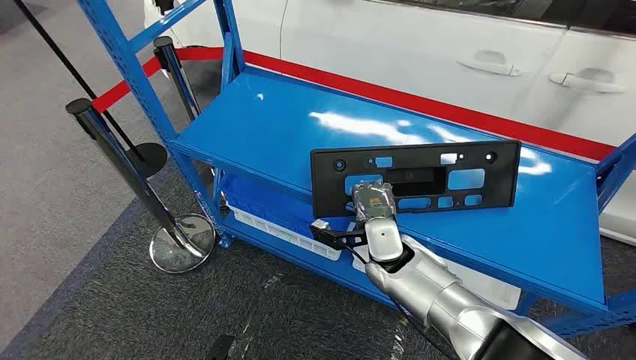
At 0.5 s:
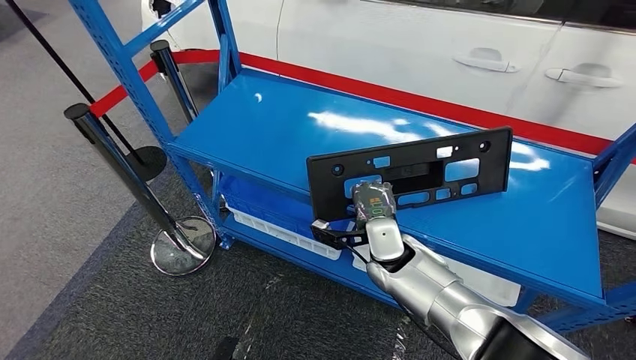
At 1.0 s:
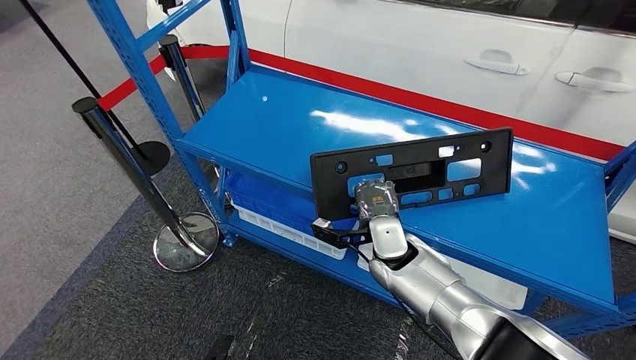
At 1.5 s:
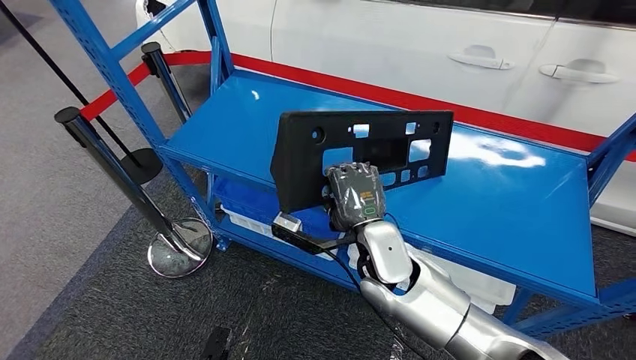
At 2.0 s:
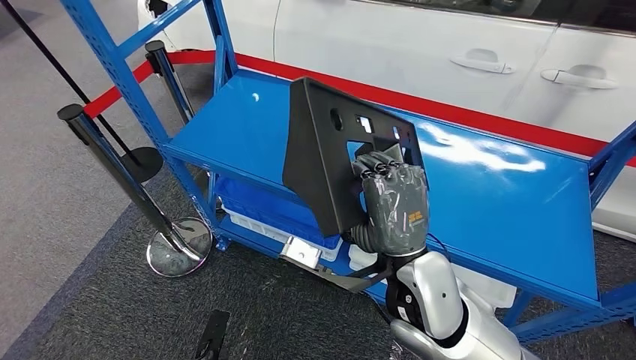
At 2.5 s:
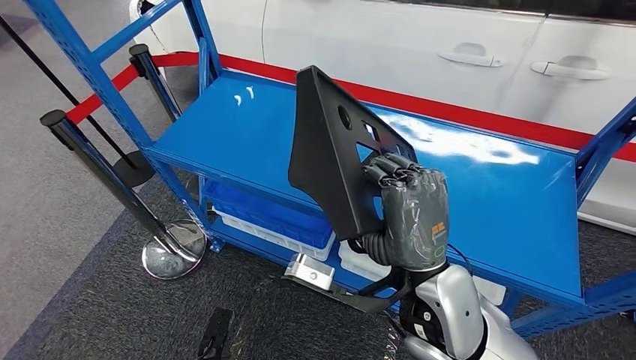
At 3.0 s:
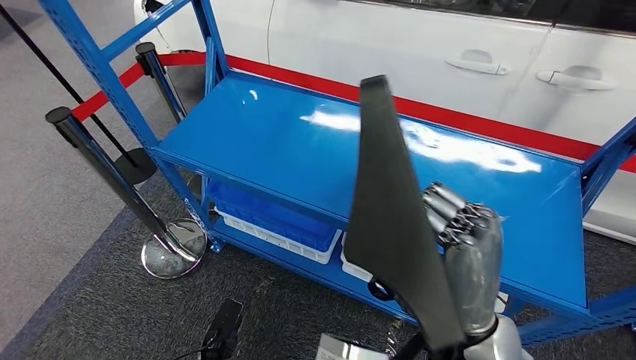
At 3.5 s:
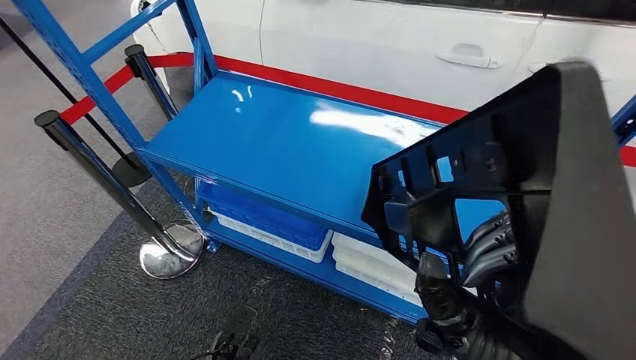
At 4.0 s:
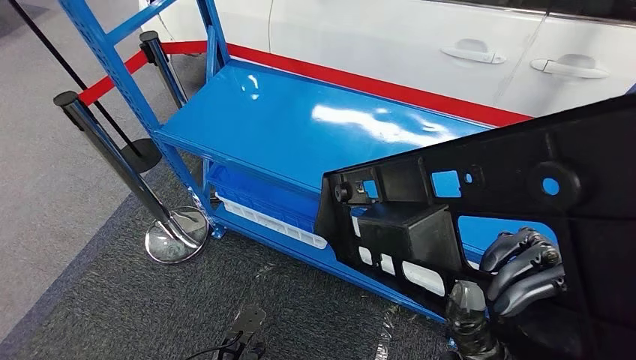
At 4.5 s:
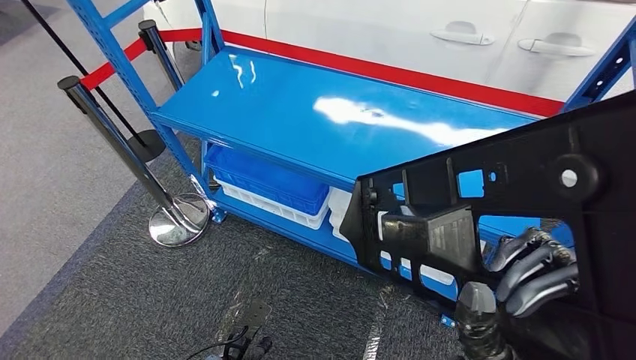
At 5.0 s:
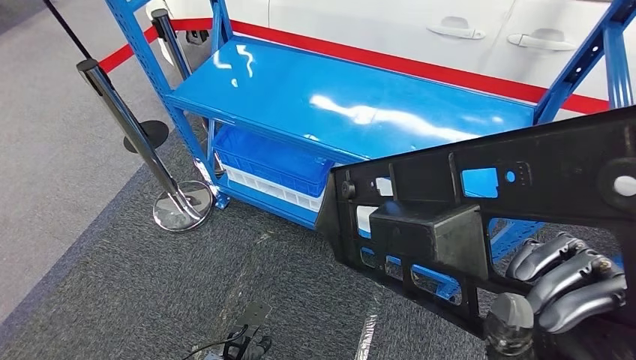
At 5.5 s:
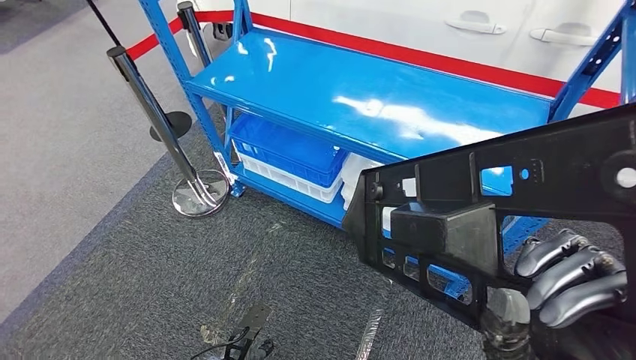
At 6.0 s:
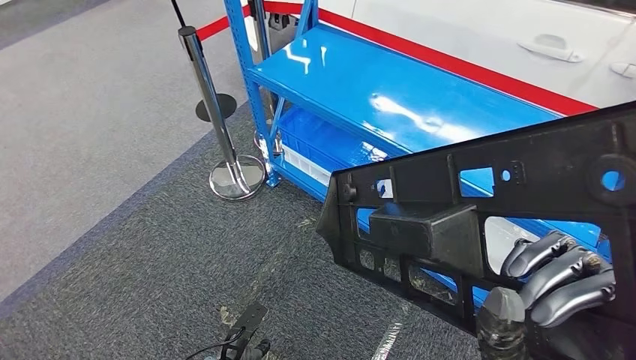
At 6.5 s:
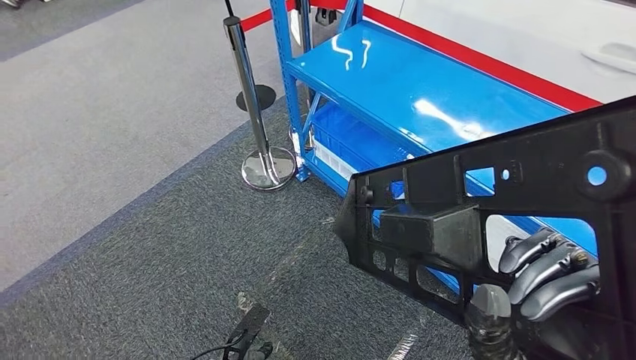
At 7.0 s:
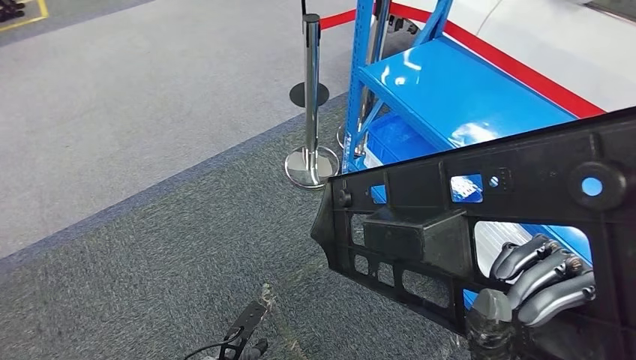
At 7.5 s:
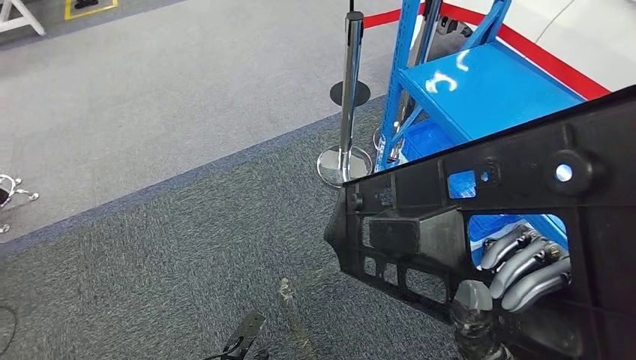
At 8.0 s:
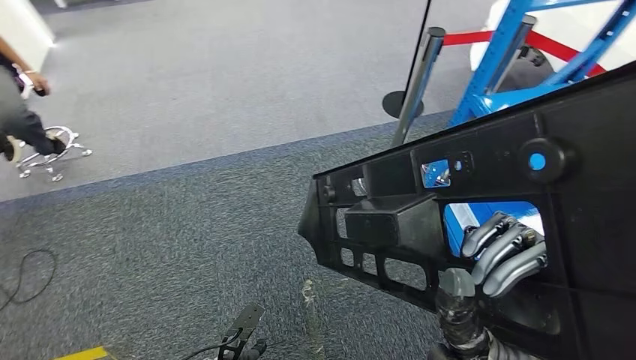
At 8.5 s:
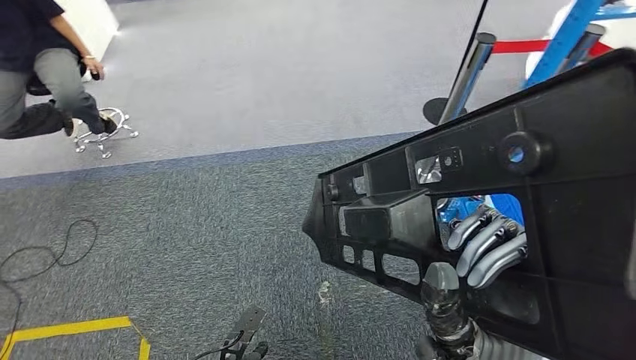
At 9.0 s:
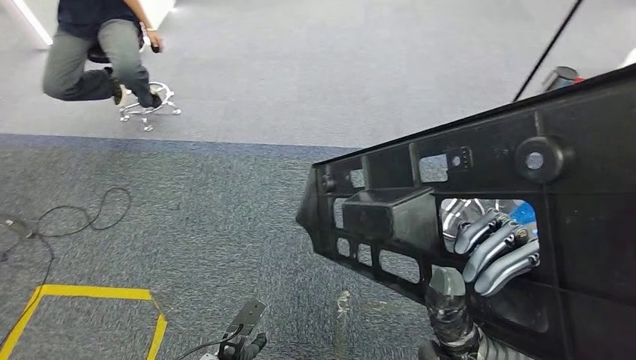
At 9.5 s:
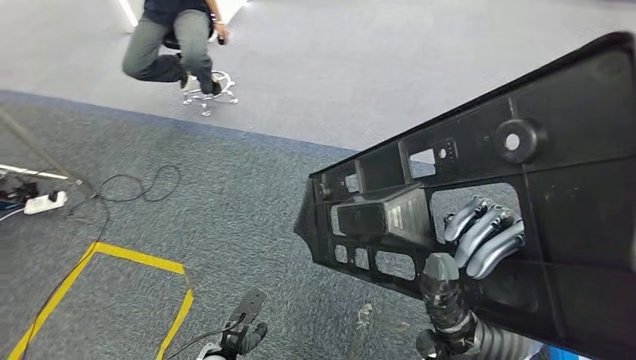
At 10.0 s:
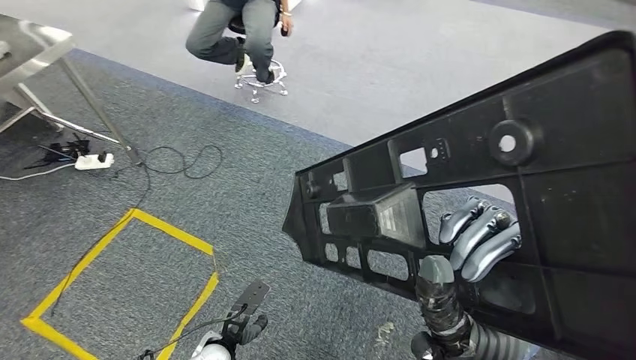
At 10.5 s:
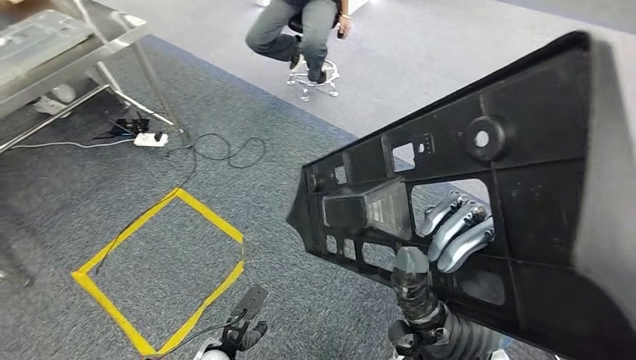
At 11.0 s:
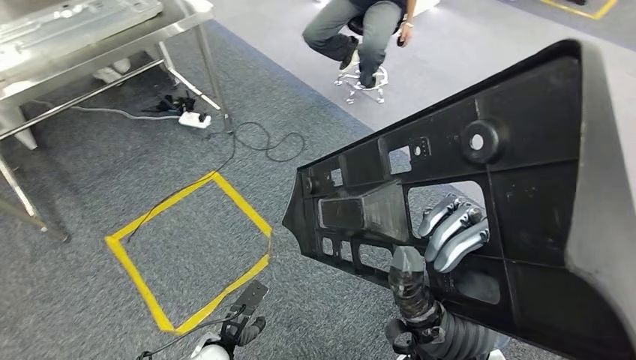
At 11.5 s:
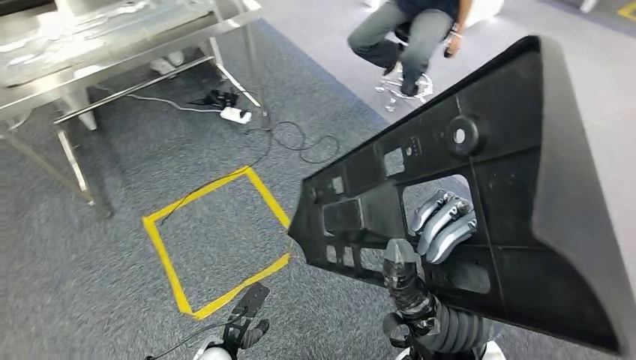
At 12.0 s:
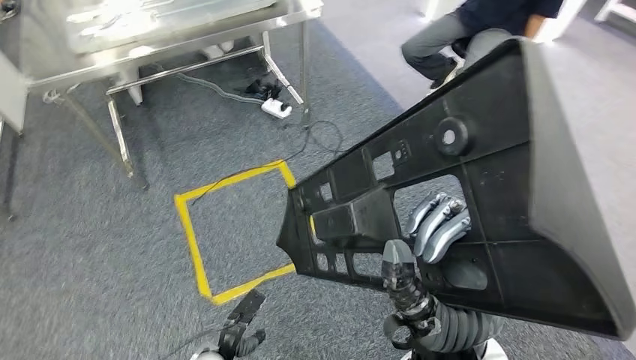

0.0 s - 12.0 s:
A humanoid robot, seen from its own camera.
Step, 0.0 s - 6.0 s: Pick up the large parts from the shelf.

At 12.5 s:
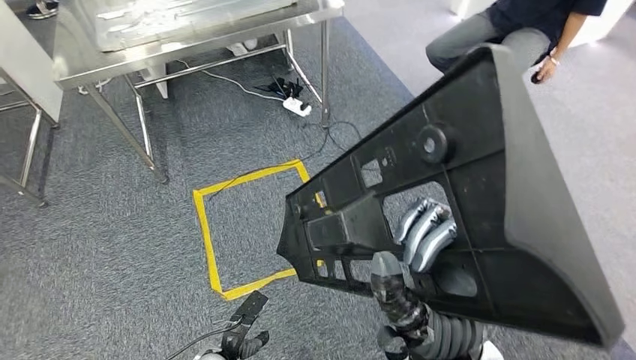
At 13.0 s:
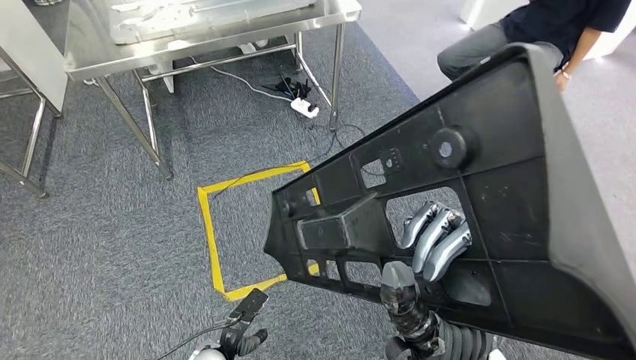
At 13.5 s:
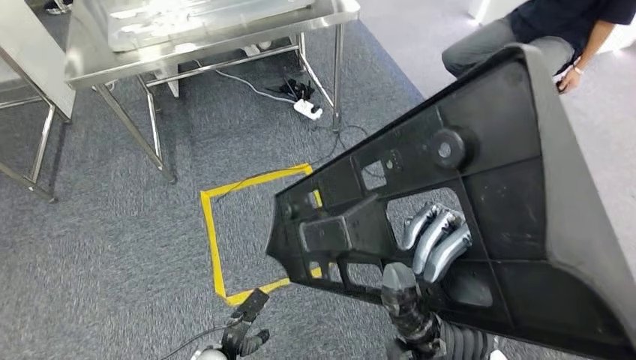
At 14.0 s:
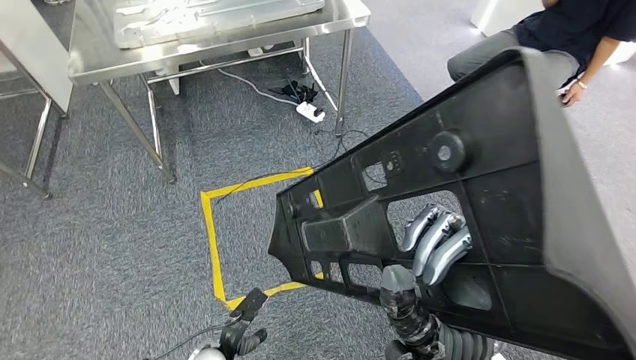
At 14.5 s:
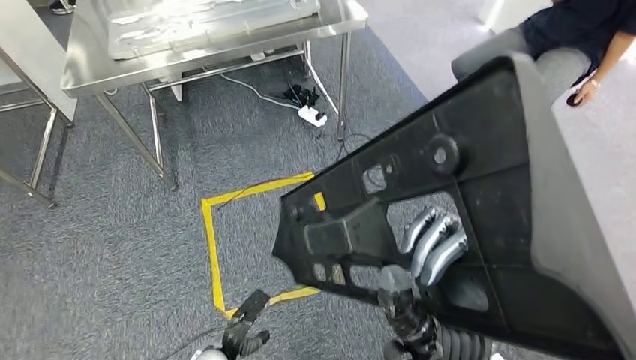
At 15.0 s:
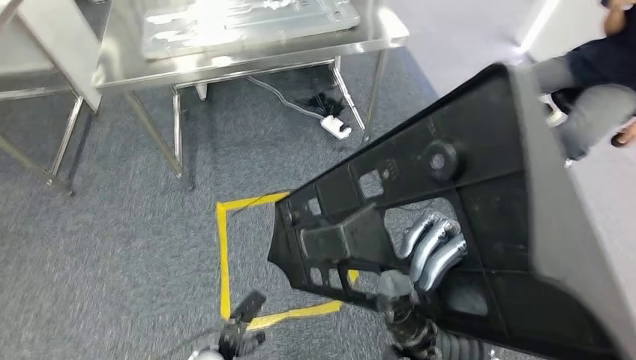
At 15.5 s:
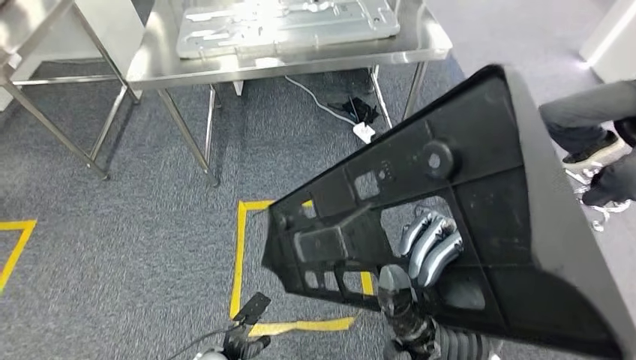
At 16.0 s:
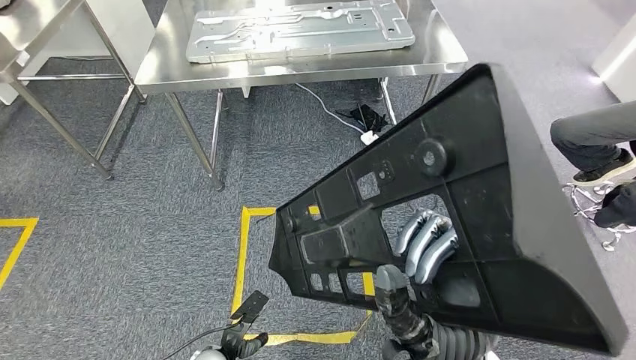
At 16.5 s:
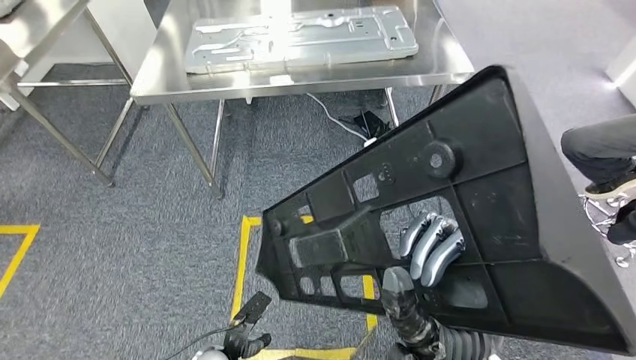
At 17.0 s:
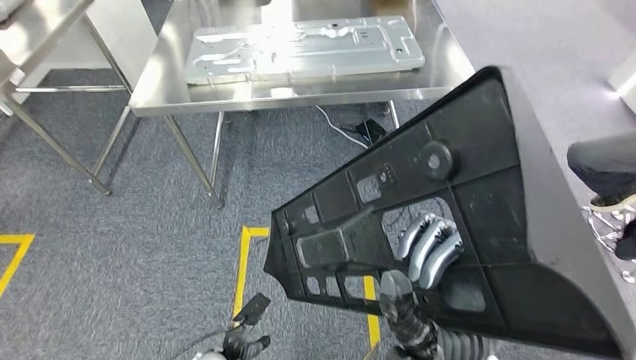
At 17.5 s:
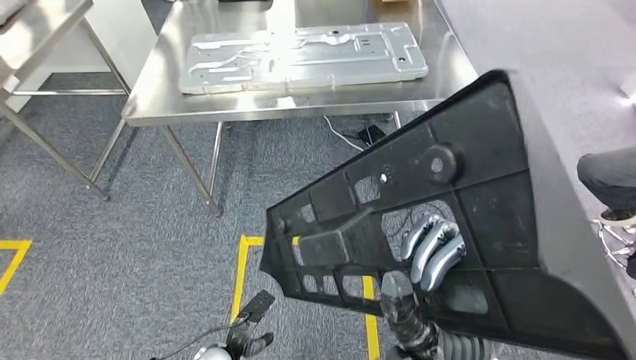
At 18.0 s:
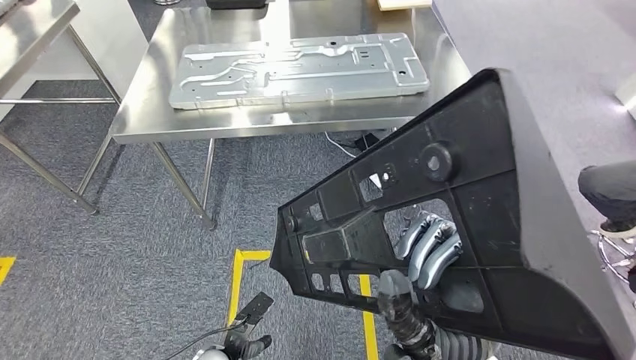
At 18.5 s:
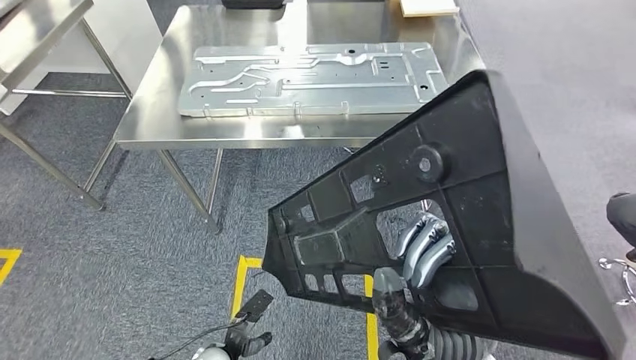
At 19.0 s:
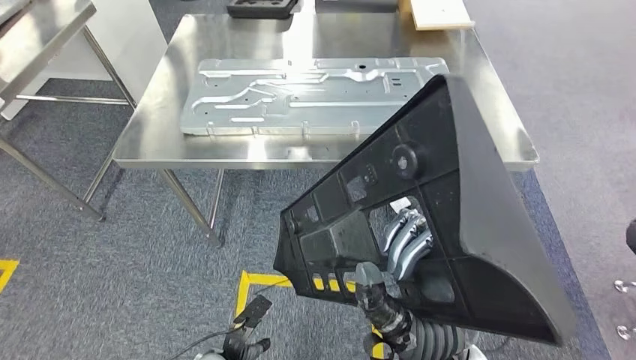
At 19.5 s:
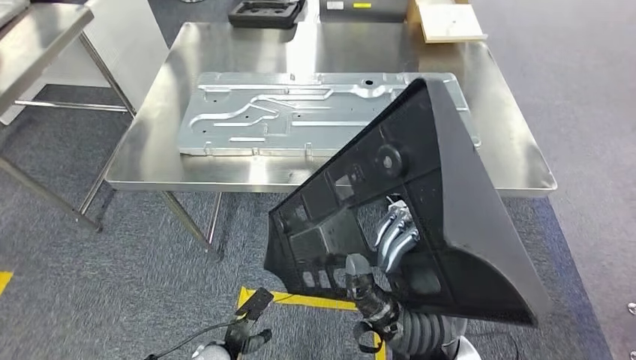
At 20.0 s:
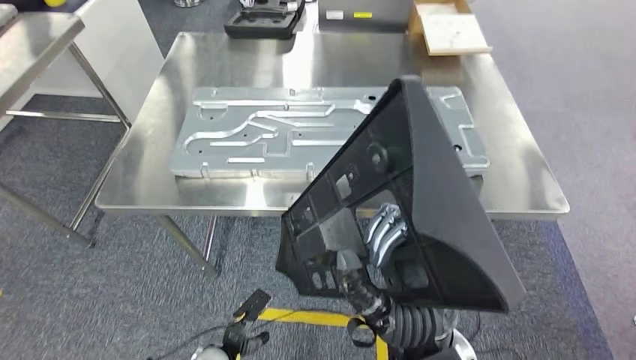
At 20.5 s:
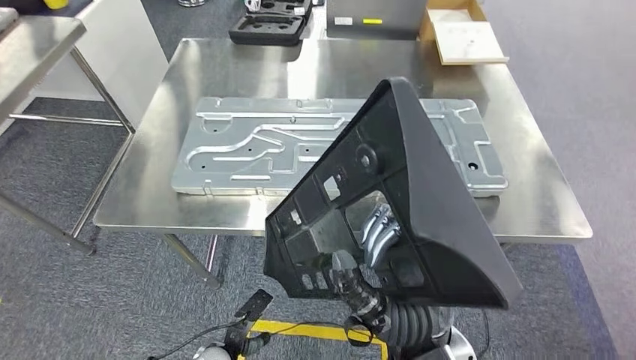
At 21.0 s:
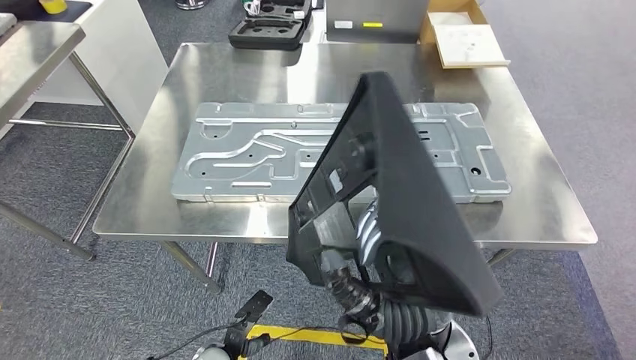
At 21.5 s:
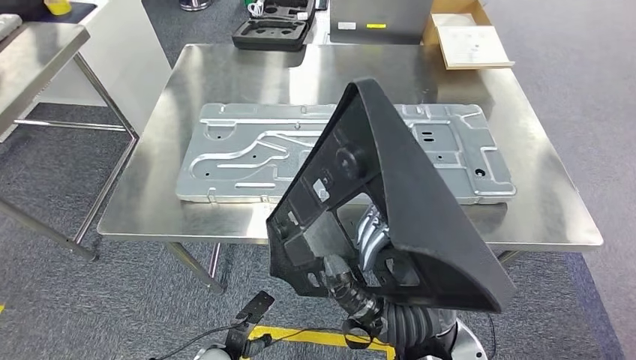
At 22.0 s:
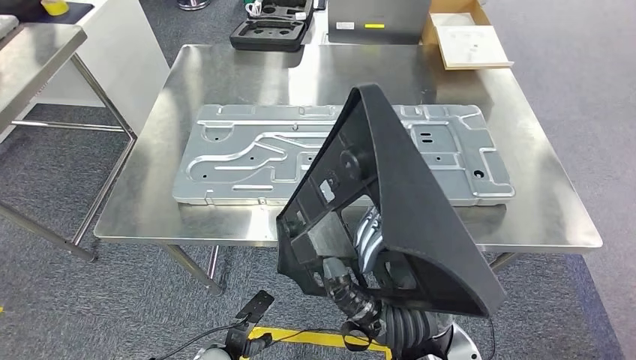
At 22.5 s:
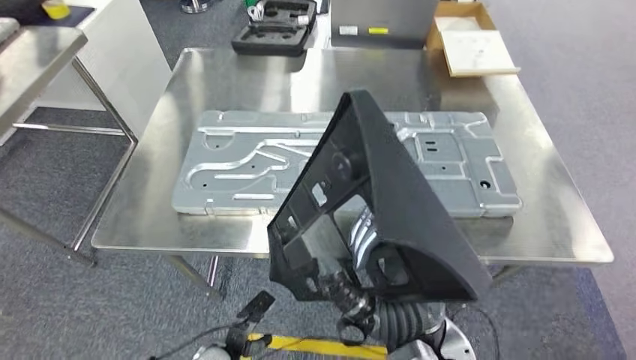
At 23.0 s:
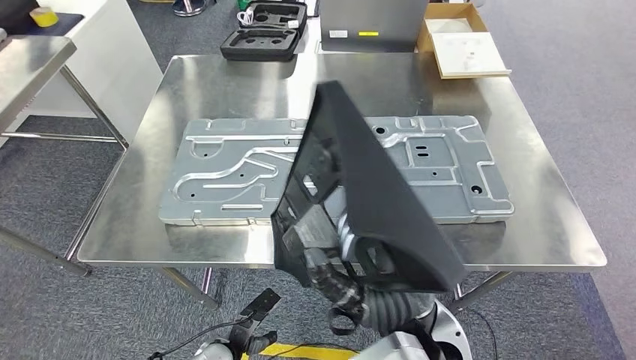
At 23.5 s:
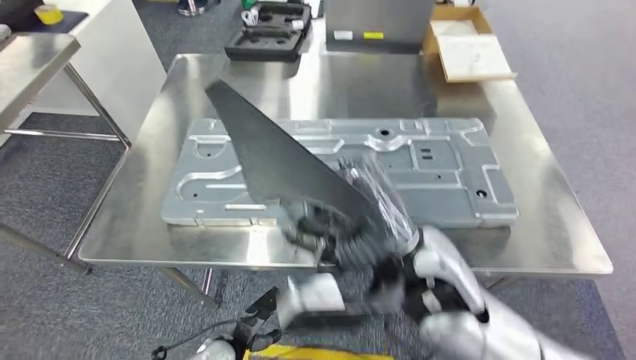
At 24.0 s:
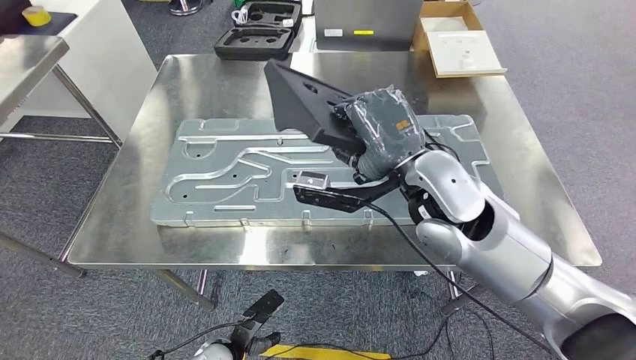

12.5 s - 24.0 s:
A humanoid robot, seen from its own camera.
Step, 12.5 s - 19.5 s: Move the large parts to the workbench.
